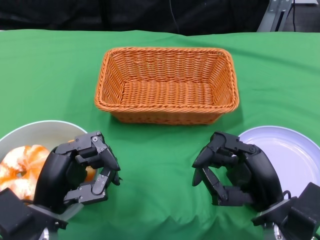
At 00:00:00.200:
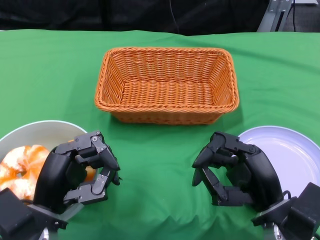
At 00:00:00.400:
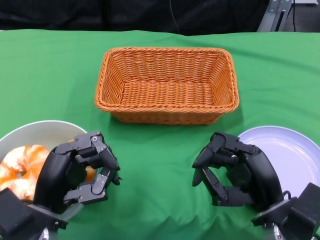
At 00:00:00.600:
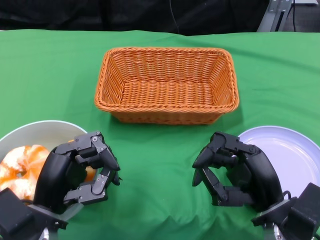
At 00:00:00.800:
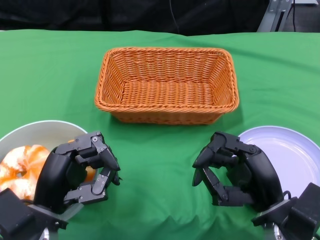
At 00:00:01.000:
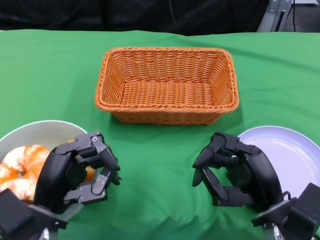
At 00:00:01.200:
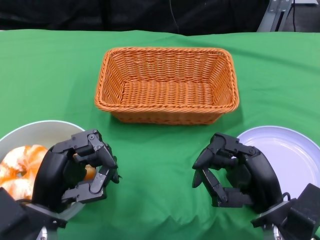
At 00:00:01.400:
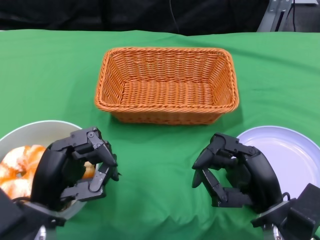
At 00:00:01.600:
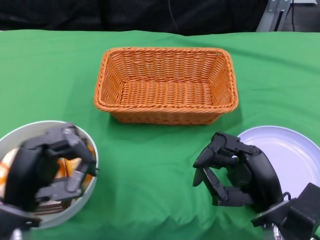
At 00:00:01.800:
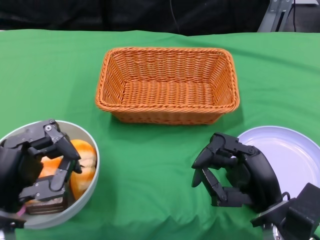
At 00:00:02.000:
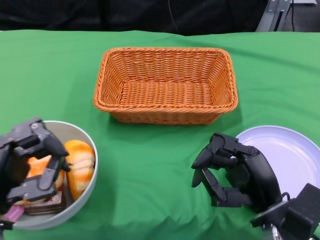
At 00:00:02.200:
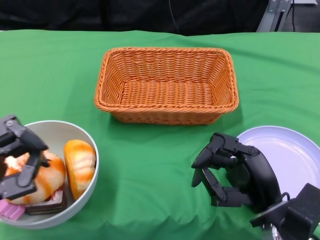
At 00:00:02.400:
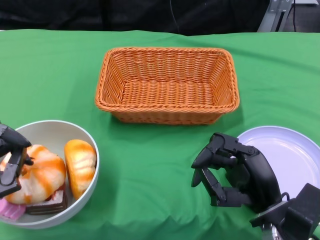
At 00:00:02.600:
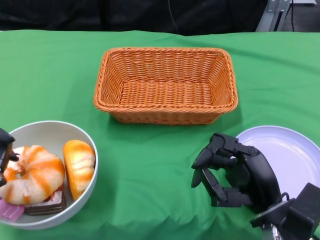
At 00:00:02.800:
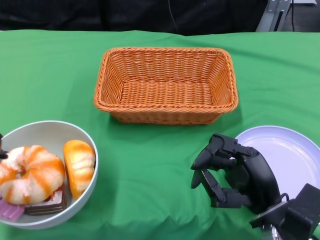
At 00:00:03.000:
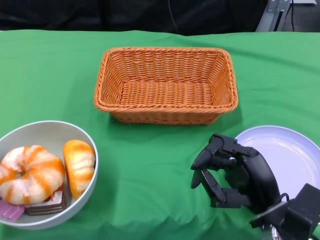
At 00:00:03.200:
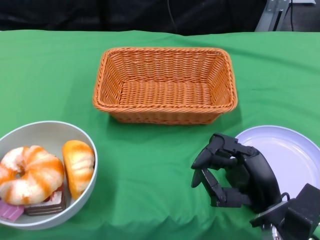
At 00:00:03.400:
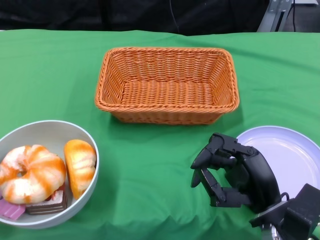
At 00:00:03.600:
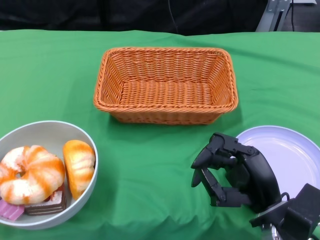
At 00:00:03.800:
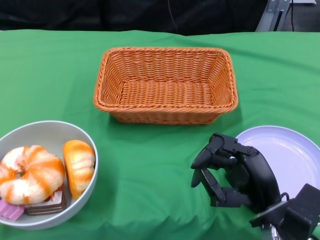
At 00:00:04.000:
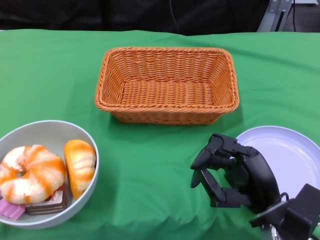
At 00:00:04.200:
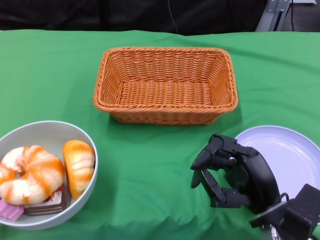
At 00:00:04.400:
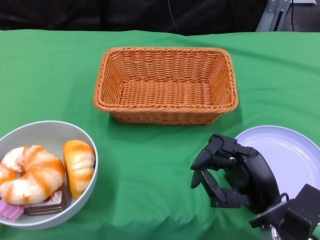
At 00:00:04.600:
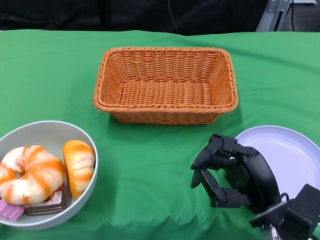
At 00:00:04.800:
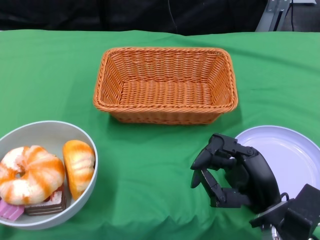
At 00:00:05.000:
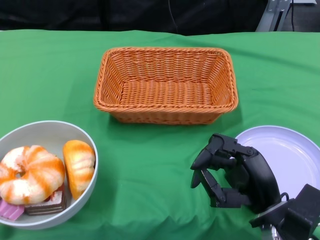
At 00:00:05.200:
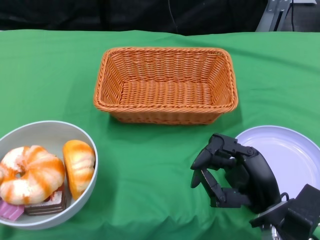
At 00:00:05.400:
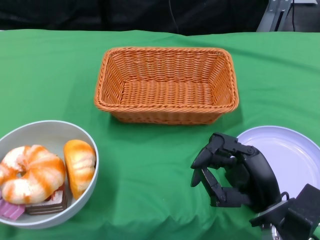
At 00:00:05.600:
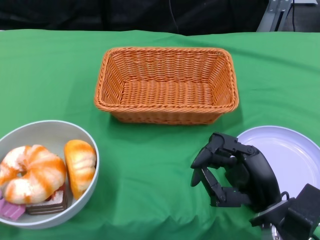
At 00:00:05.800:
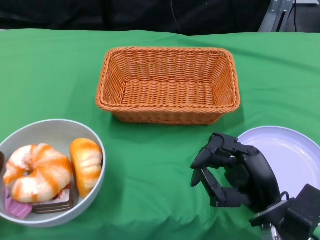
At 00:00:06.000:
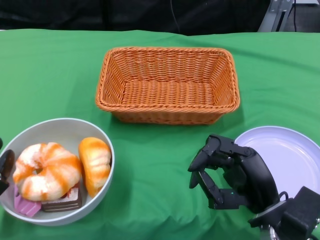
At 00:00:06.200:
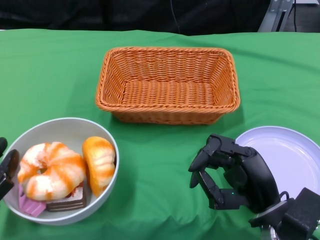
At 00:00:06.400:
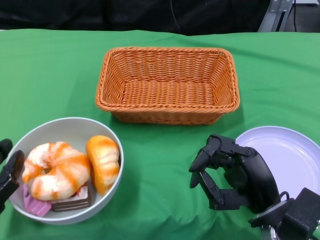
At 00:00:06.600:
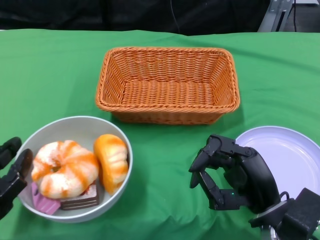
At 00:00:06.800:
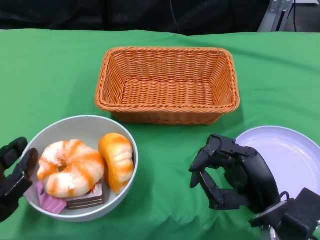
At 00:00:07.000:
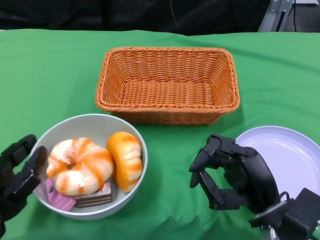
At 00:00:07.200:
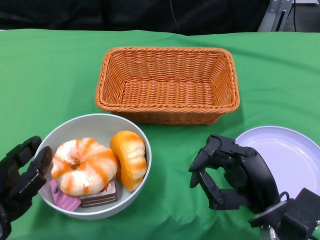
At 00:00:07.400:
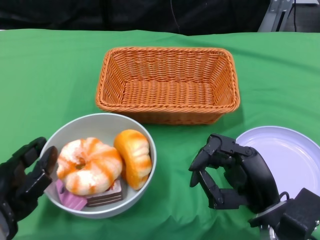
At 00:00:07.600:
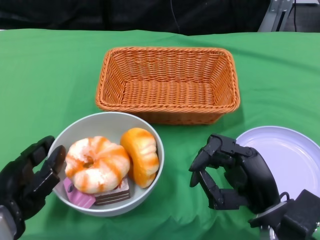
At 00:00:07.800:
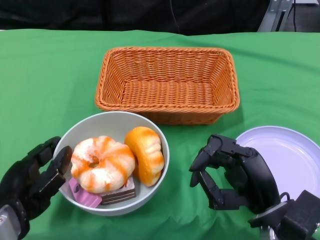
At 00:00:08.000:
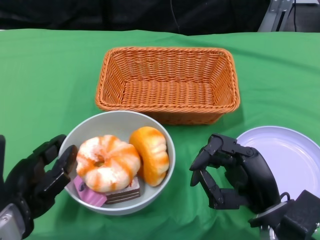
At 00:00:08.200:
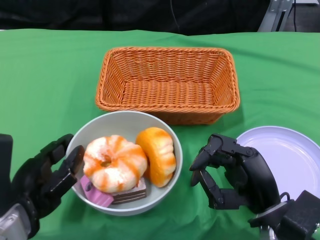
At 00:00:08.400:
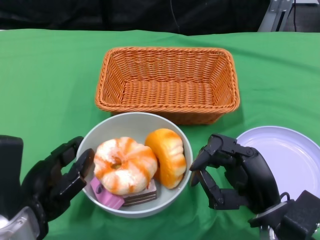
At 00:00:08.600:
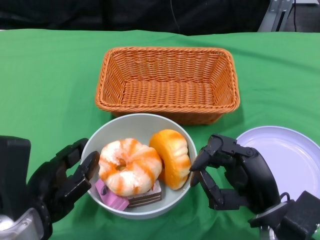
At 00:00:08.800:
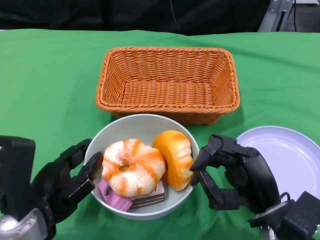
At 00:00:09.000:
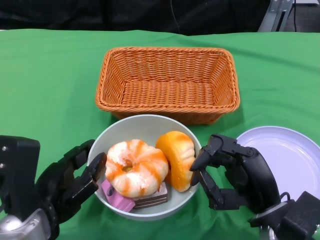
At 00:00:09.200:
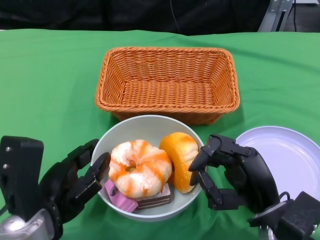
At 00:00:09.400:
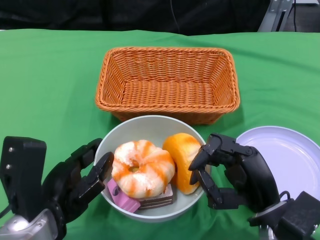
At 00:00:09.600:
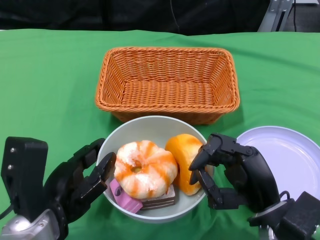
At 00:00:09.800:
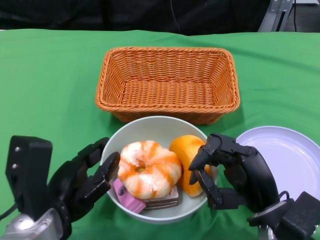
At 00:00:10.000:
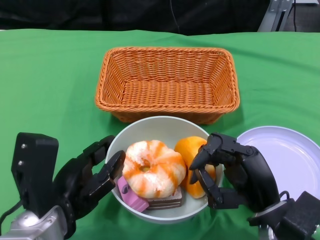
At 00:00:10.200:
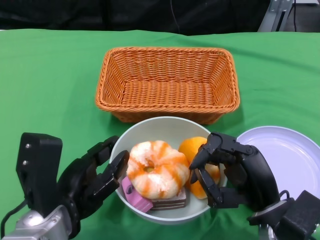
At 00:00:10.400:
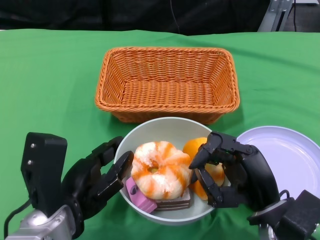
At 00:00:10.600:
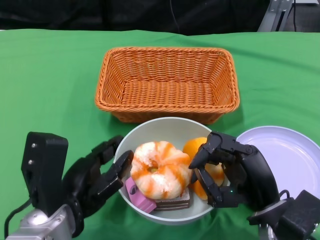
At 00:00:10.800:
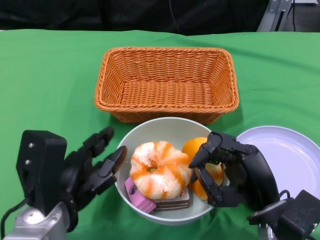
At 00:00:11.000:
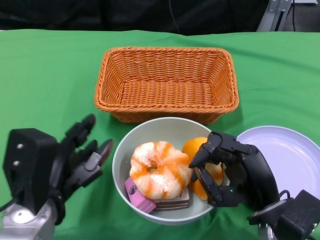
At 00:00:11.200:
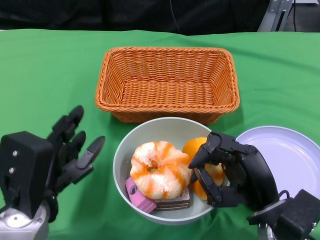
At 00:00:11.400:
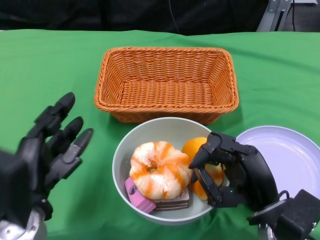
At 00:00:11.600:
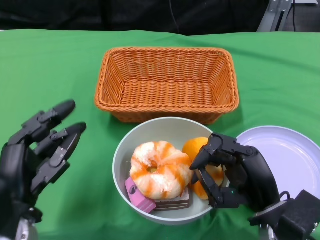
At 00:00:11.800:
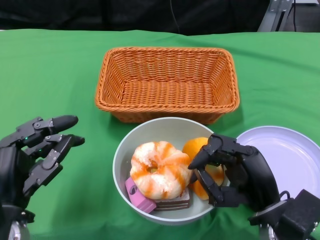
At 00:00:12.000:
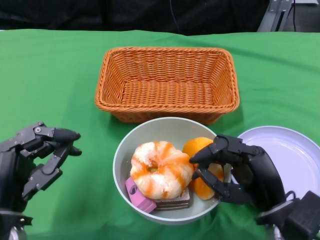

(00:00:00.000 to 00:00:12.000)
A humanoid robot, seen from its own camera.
Step, 00:00:00.000 - 00:00:11.000: Push the bowl to the center of the table using the left gripper.
00:00:01.600 - 00:00:03.000: The left hand heads to the left, covering some 10 cm.
00:00:03.000 - 00:00:04.400: The left hand travels downward by approximately 5 cm.
00:00:06.000 - 00:00:07.600: The left hand goes some 5 cm to the right.
00:00:07.600 - 00:00:09.000: There are only small adjustments of the hands.
00:00:10.400 - 00:00:12.000: The left hand heads to the left, covering some 5 cm.

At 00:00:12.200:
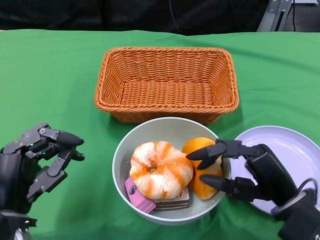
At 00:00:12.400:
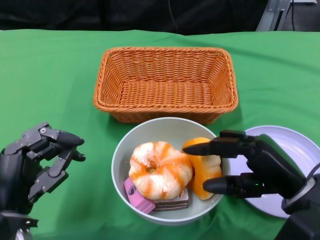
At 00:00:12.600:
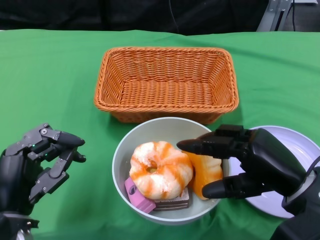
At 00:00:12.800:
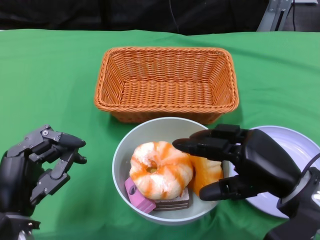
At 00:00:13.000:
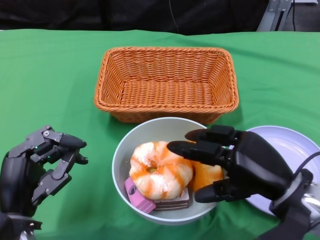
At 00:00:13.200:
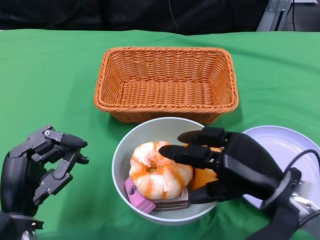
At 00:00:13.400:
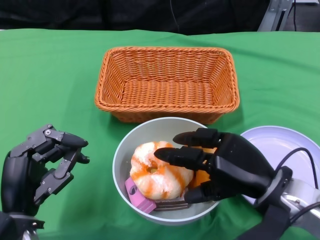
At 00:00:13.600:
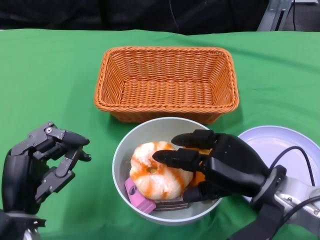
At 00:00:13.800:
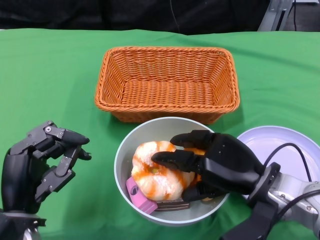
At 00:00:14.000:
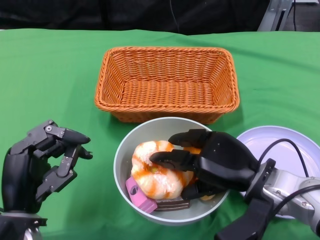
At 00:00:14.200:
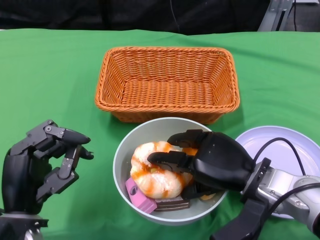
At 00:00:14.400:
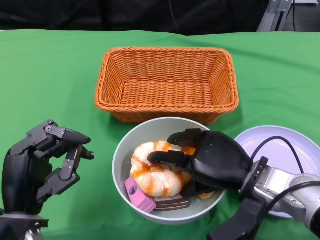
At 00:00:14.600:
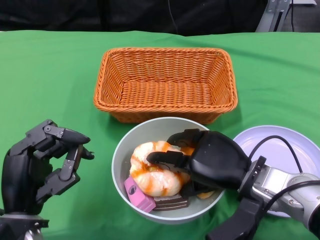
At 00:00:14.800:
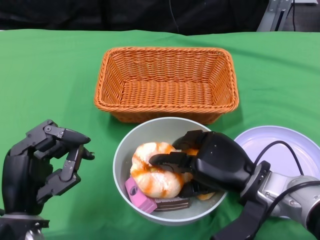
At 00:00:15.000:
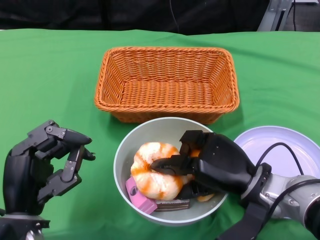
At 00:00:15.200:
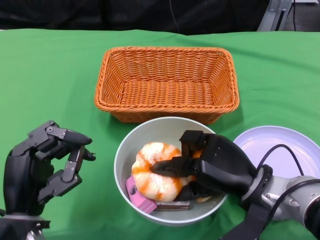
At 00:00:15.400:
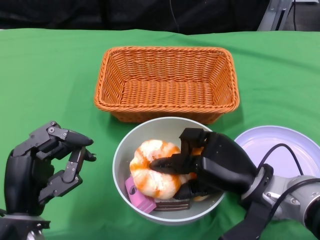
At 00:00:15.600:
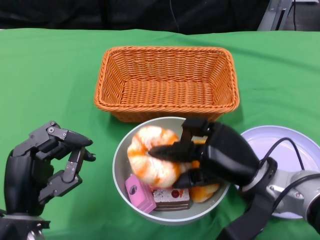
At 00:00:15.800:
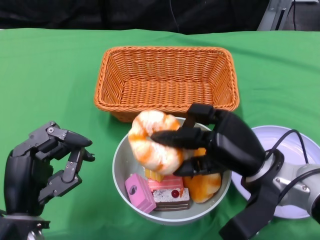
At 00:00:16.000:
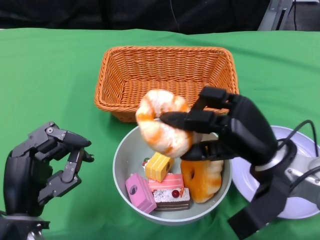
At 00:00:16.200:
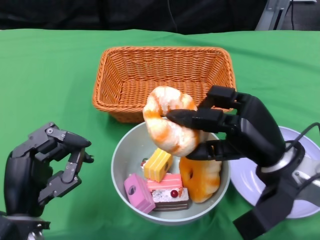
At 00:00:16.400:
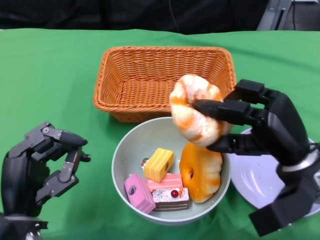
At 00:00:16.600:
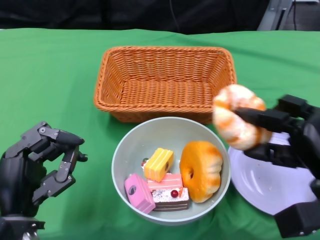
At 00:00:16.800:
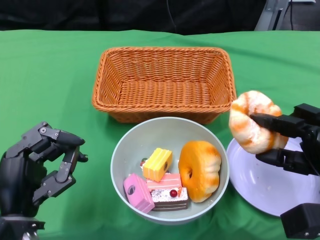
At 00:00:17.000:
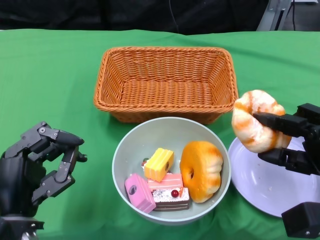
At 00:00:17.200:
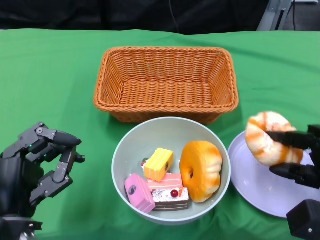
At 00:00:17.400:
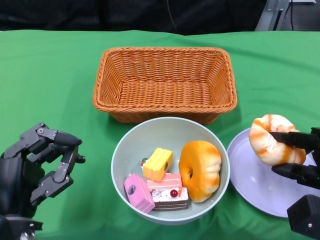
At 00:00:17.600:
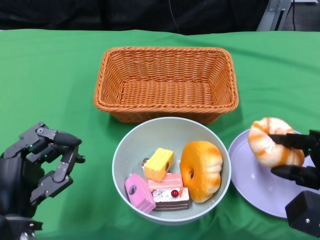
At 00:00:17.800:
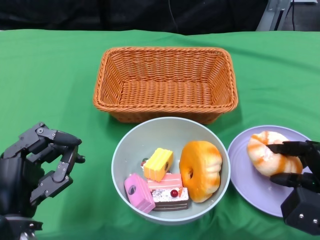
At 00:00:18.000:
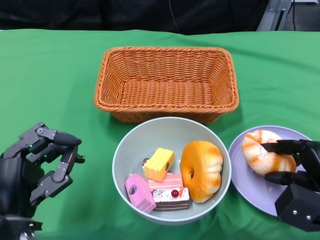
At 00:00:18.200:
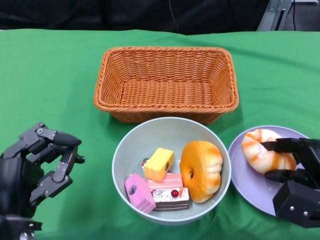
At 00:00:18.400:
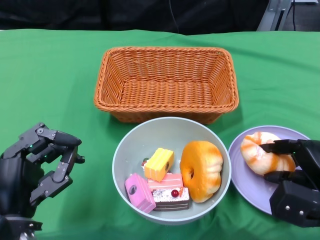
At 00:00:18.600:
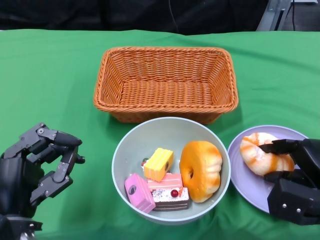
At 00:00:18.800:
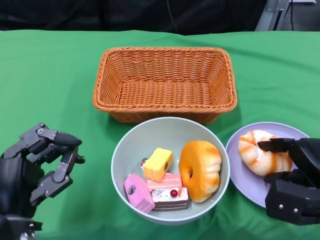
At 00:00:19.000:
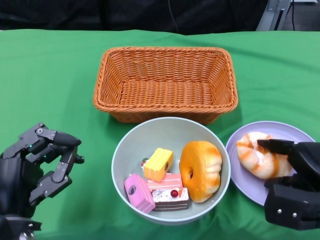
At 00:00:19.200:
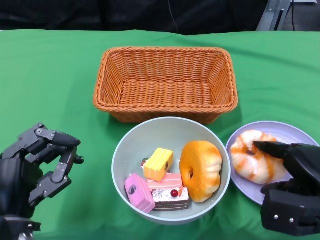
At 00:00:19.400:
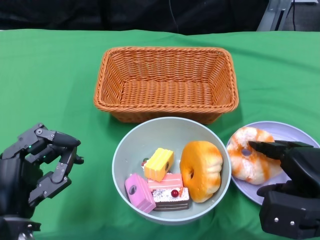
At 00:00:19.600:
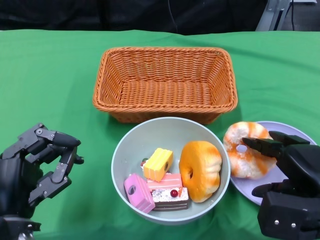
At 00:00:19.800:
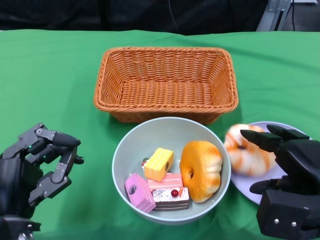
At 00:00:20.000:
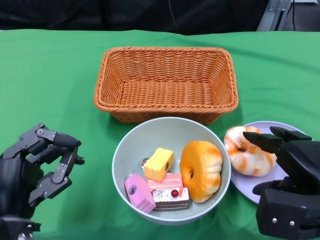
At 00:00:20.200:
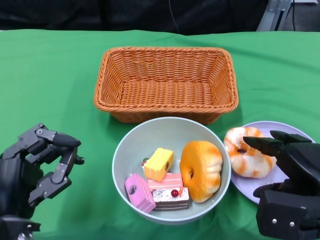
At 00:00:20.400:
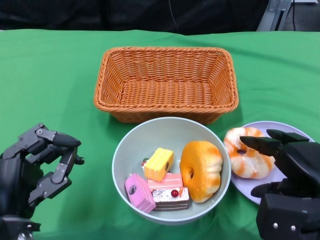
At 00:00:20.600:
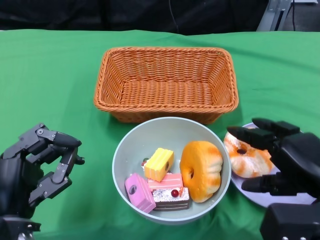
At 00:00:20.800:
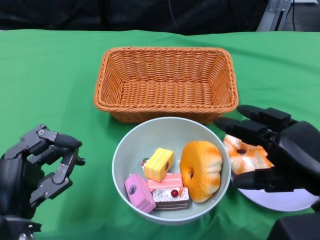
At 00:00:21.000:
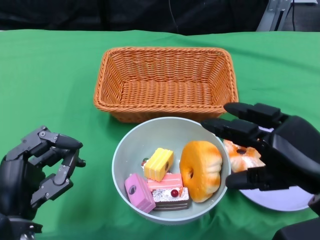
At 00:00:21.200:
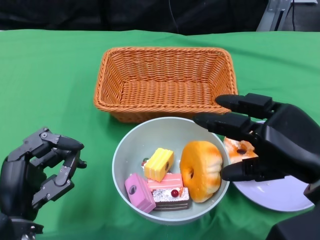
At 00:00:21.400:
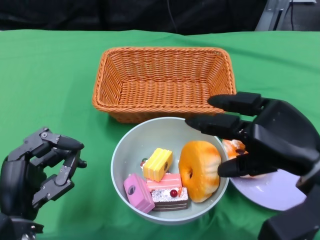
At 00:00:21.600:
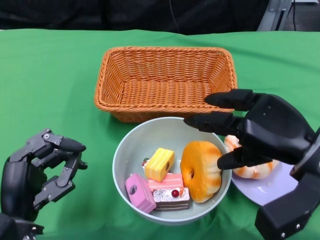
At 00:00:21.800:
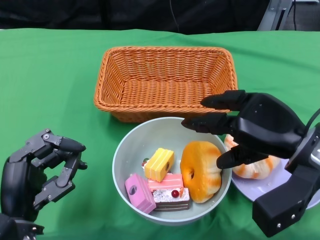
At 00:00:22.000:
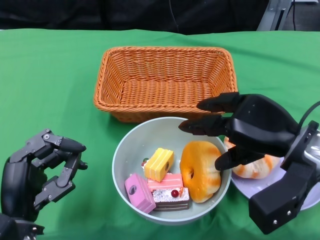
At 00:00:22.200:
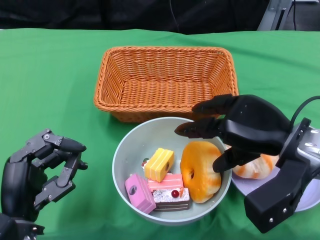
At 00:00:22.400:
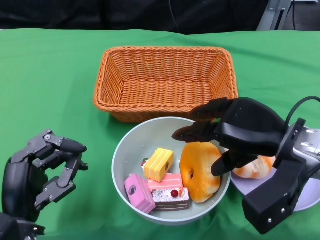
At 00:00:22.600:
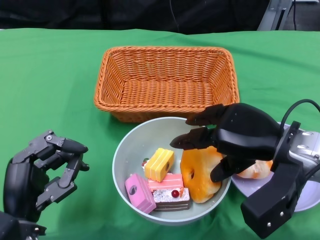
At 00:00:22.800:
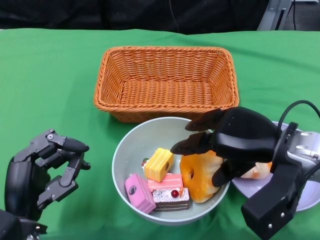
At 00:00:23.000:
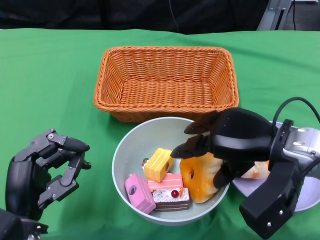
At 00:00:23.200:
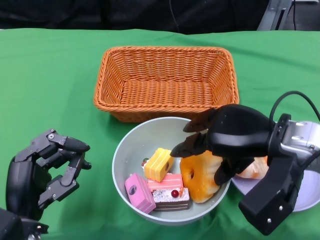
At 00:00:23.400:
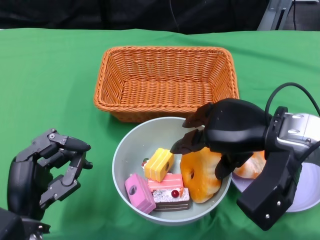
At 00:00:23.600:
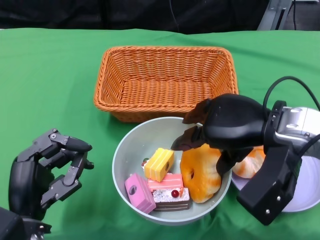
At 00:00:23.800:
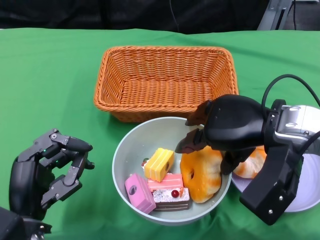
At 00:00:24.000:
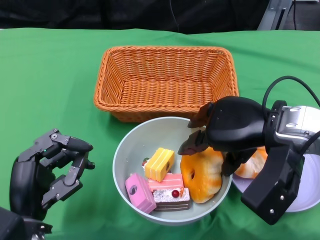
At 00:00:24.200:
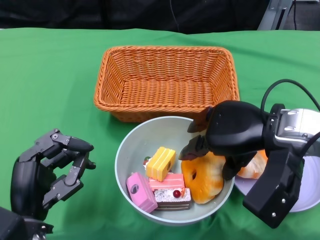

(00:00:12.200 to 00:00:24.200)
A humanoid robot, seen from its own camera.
00:00:13.800 - 00:00:15.200: The hands make only small movements.
00:00:15.200 - 00:00:16.600: The right hand shifts approximately 10 cm to the right.
00:00:18.200 - 00:00:19.800: The right hand heads upward, covering some 5 cm.
00:00:19.800 - 00:00:21.200: The right hand goes some 5 cm upward.
00:00:21.200 - 00:00:22.600: The right hand shifts about 5 cm forward.
